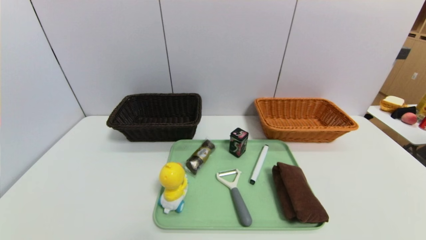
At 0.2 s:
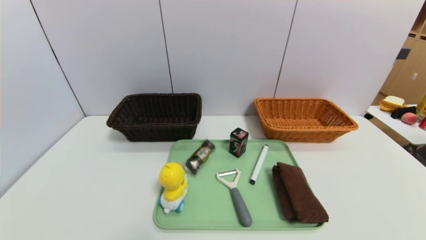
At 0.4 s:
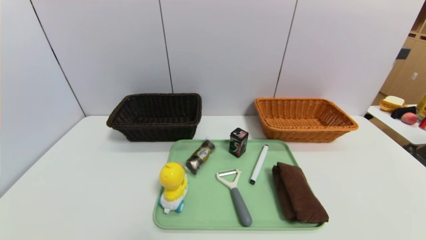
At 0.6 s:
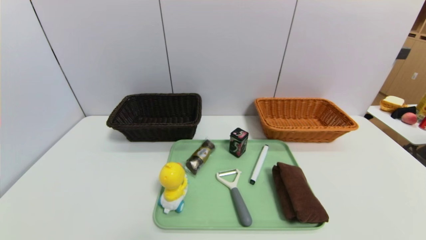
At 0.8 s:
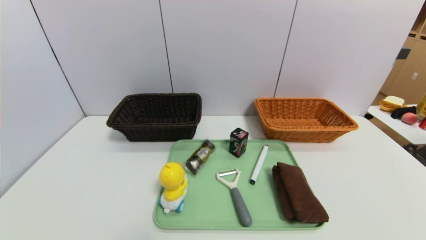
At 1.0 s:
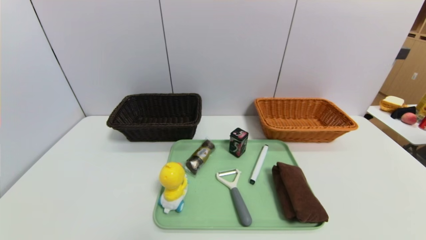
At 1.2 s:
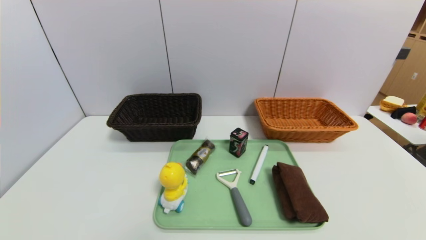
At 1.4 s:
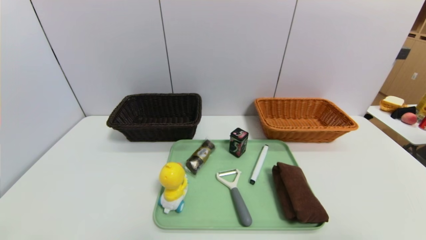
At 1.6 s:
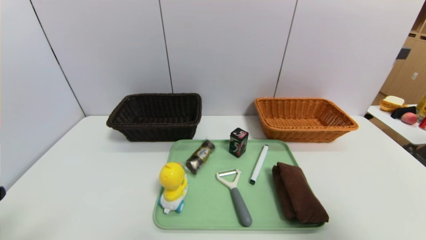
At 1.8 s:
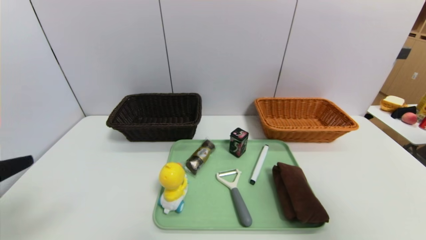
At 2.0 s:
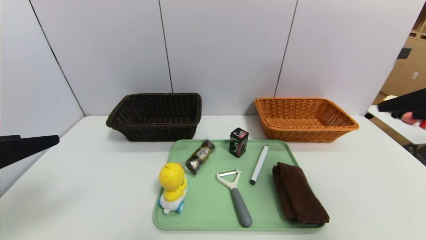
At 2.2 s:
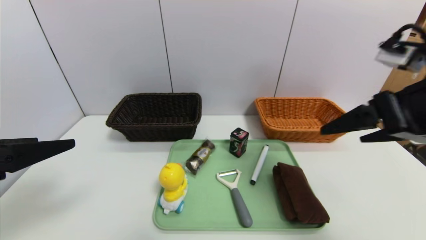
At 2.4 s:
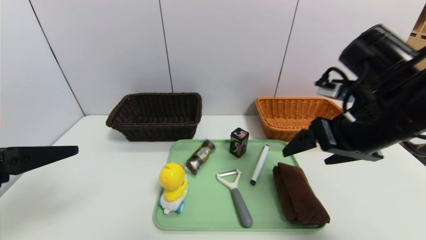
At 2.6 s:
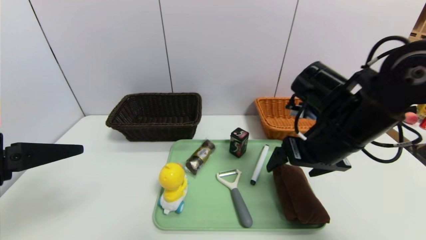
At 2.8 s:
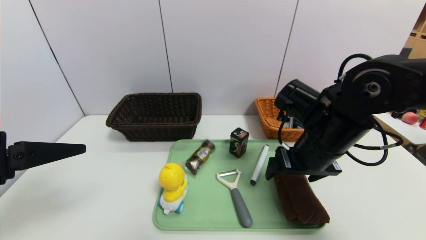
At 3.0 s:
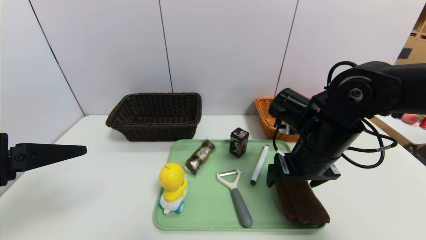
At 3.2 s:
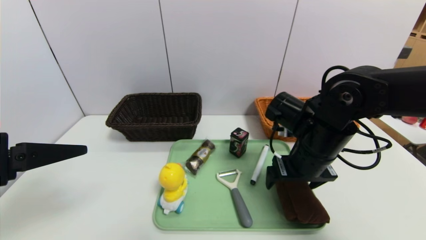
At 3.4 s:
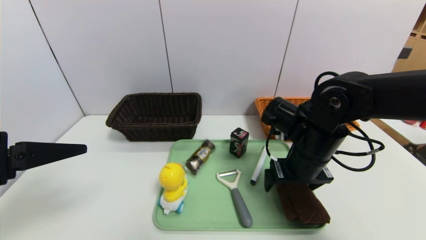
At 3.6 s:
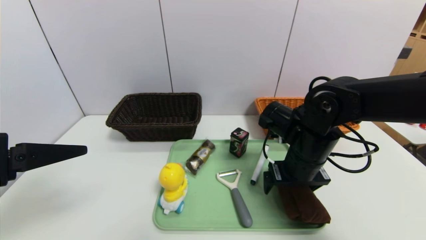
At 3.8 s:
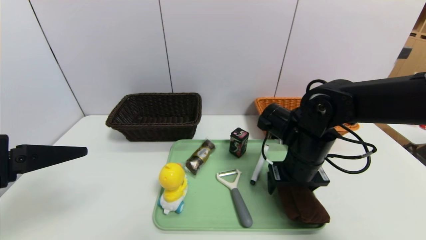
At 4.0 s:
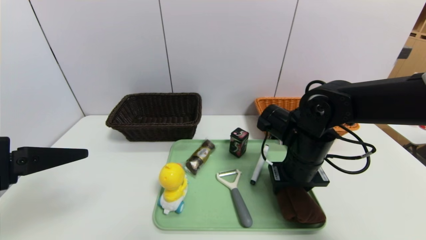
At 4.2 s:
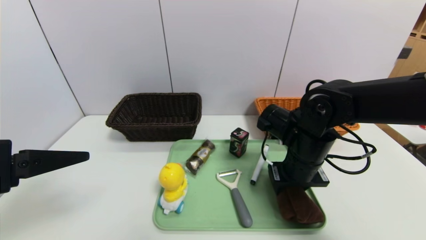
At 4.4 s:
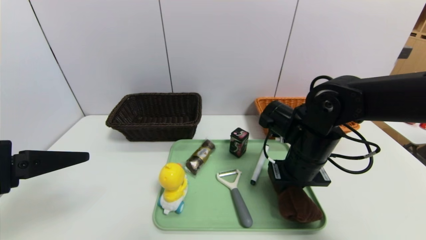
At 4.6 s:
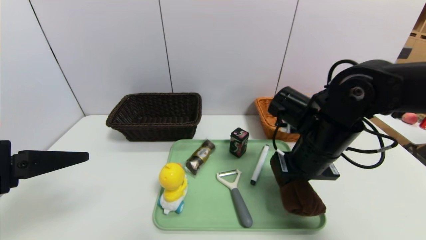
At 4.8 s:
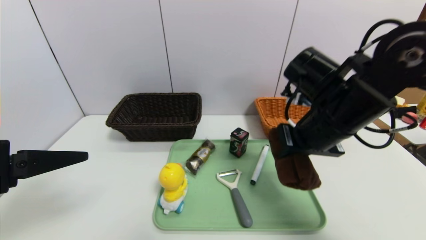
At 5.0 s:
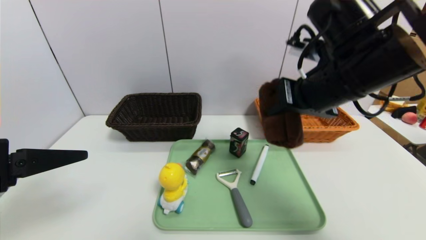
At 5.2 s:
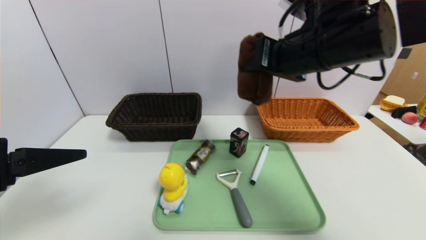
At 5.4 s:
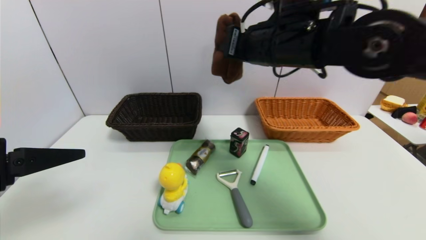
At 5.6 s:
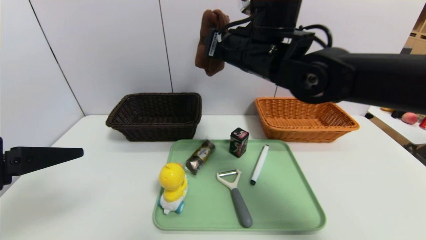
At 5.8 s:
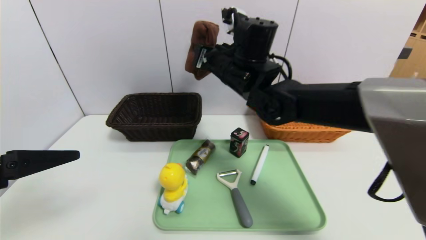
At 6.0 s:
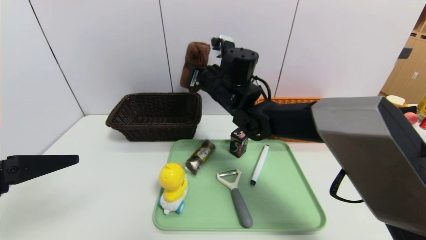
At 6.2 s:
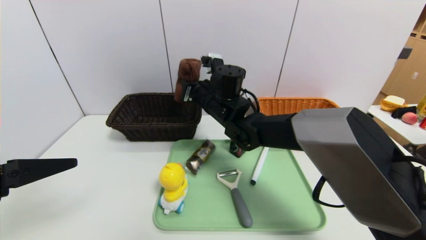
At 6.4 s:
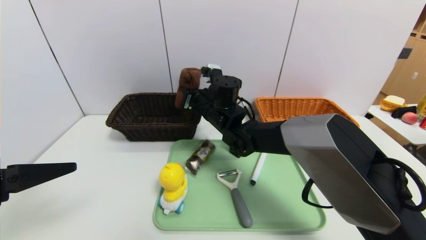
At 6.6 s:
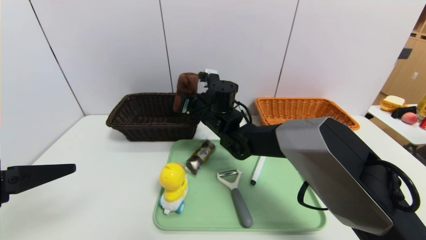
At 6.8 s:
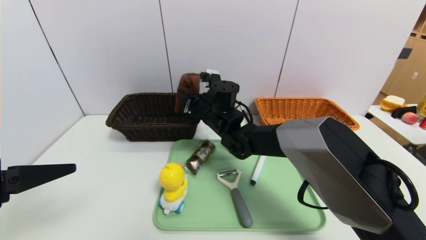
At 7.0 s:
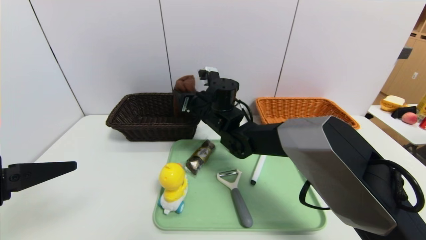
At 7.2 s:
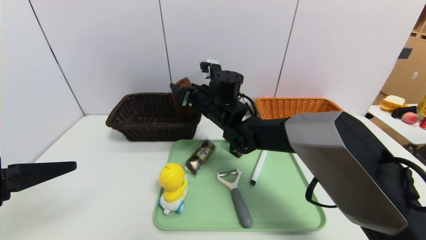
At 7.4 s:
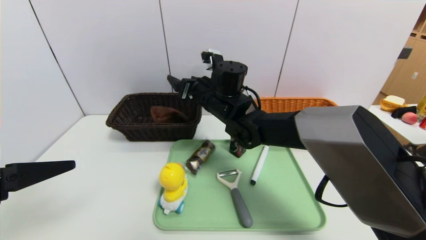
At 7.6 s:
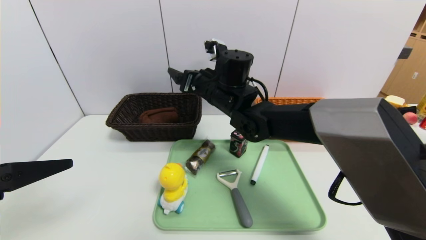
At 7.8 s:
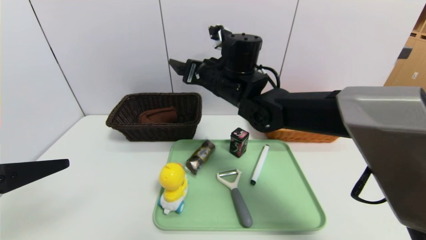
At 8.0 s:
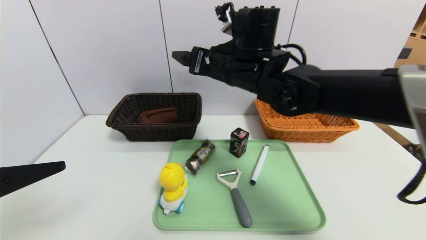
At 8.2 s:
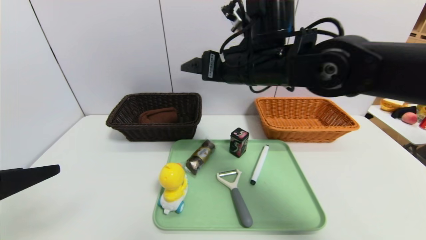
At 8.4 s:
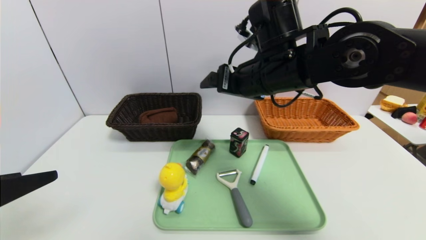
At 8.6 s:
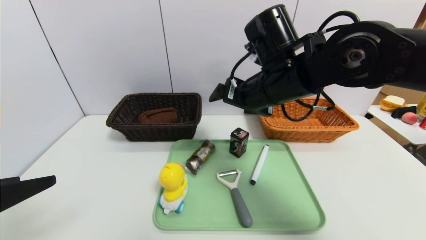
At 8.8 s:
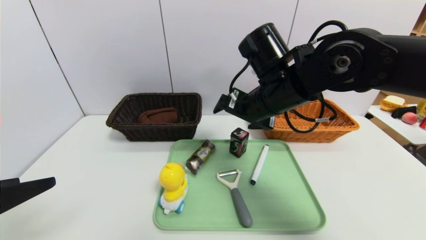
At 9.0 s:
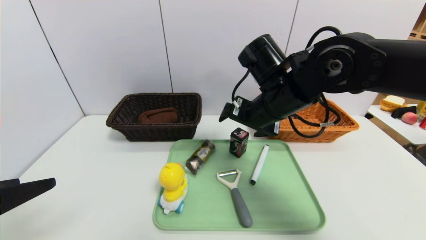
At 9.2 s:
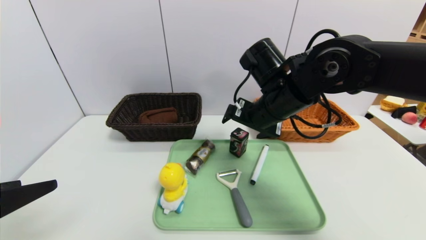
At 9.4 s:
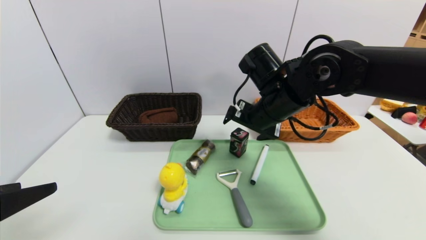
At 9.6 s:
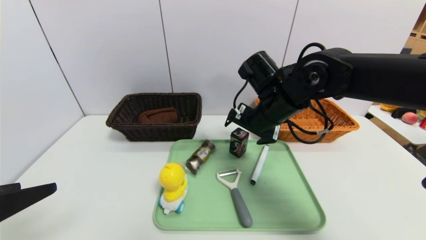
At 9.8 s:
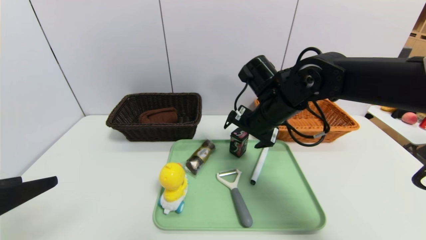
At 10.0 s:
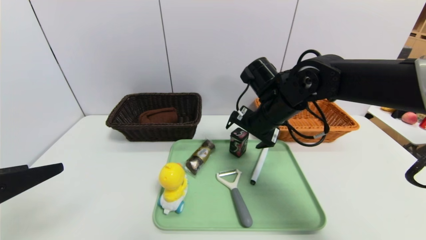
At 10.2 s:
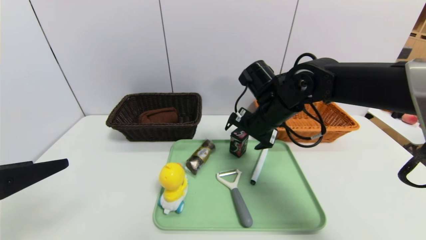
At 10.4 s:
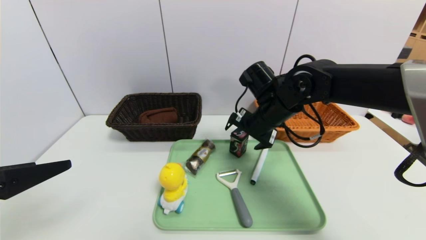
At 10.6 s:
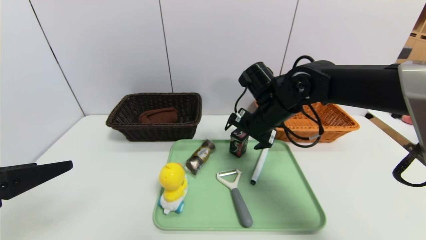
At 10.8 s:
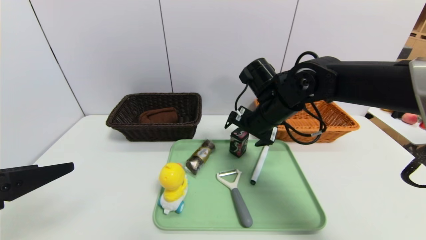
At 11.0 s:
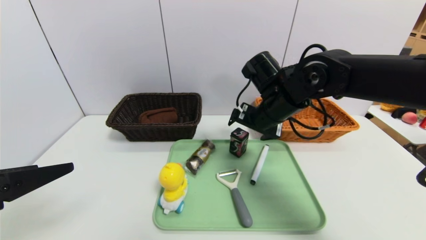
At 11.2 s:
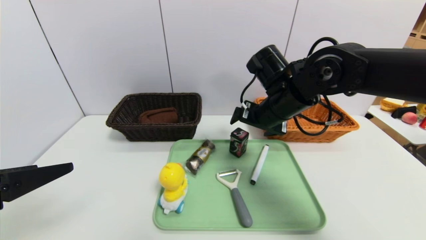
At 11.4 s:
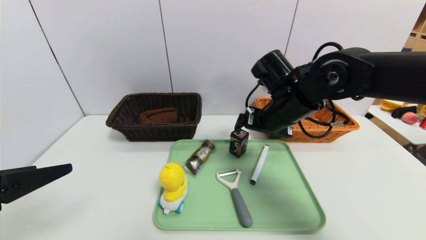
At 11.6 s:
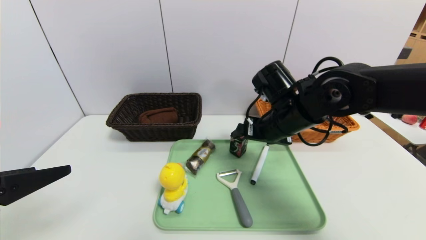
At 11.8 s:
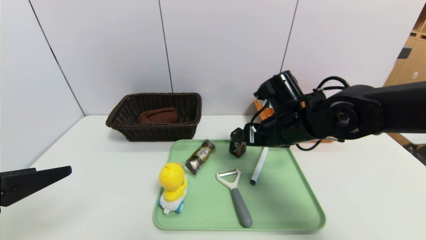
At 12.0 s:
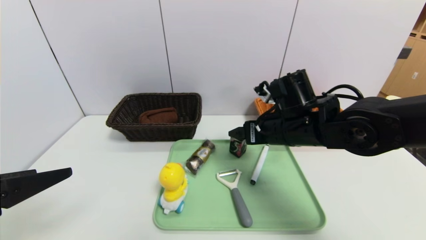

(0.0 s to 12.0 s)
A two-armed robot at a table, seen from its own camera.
Task of the whole recording: place the food in the right basket with the right gripper, and place the non food items in the left basket with the left gripper.
Step, 0.0 s - 8.0 s: Grasp the brown towel and put it in the left basket.
0.0 s - 1.6 s: The right gripper heads upward, covering roughly 30 cm.
1.6 s - 3.0 s: The left gripper travels forward by roughly 10 cm. The right gripper heads forward, to the left and downward, covering roughly 30 cm.
3.0 s - 4.4 s: The right gripper closes up.
4.4 s - 6.0 s: The right gripper goes some 20 cm to the left and forward, and travels upward and back again, some 15 cm each way.
6.0 s - 7.6 s: The right gripper opens its fingers.
7.6 s - 9.0 s: The right gripper is displaced to the right and backward by some 10 cm.
9.0 s - 10.4 s: The right gripper changes place by roughly 5 cm.
10.4 s - 12.0 s: The right gripper shifts roughly 5 cm backward.

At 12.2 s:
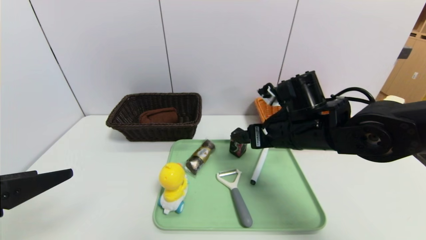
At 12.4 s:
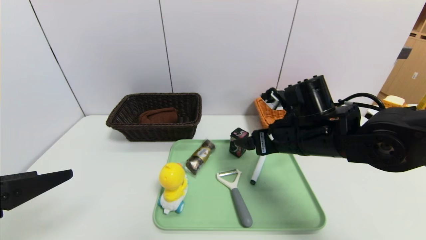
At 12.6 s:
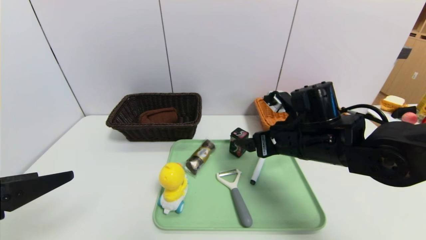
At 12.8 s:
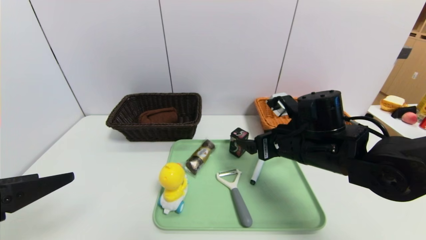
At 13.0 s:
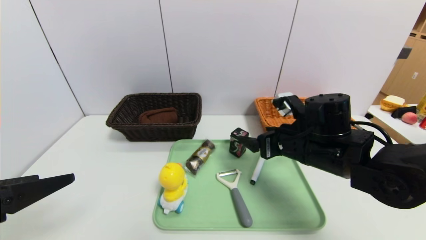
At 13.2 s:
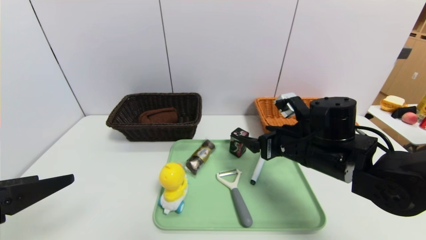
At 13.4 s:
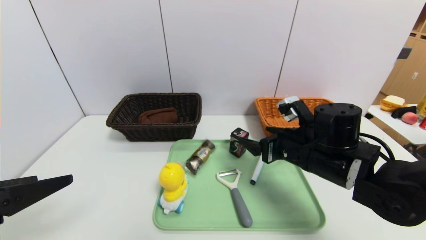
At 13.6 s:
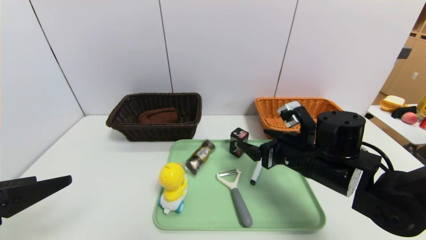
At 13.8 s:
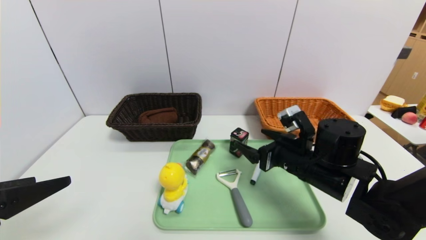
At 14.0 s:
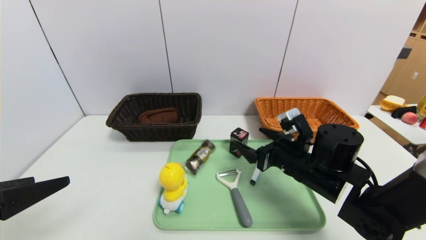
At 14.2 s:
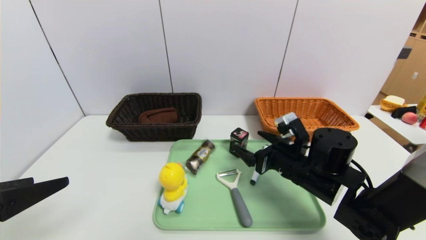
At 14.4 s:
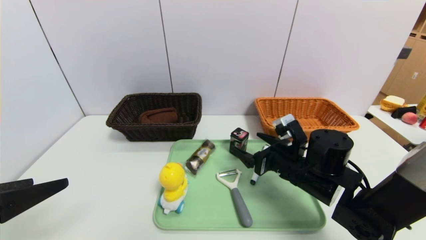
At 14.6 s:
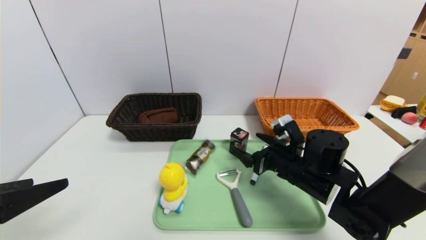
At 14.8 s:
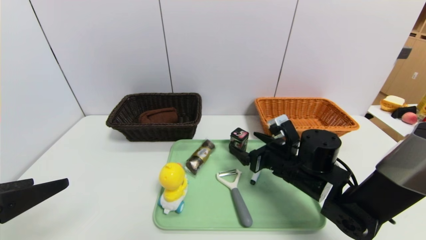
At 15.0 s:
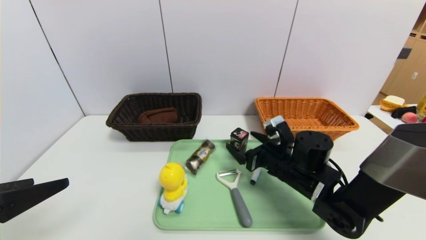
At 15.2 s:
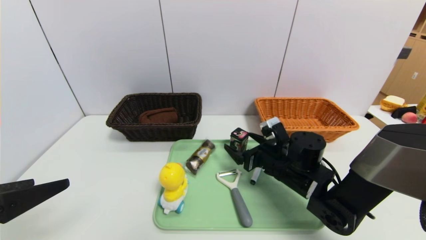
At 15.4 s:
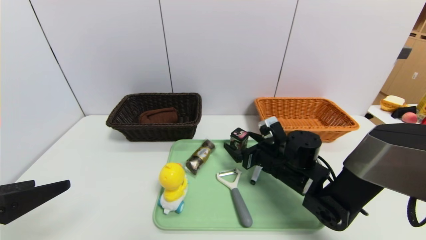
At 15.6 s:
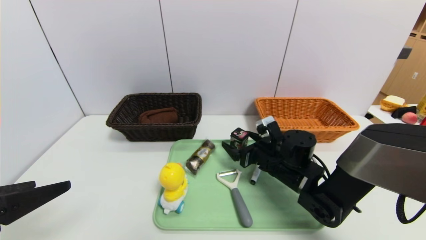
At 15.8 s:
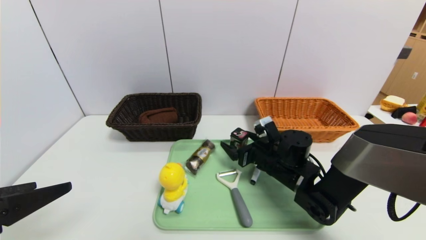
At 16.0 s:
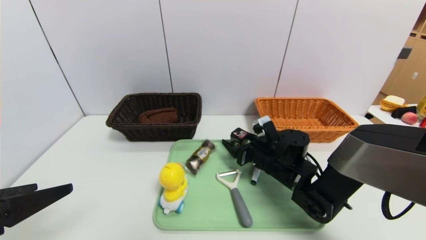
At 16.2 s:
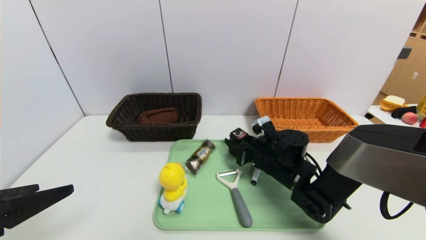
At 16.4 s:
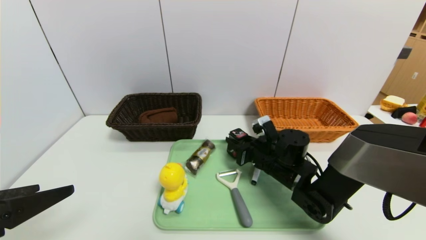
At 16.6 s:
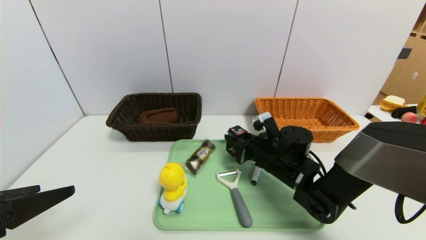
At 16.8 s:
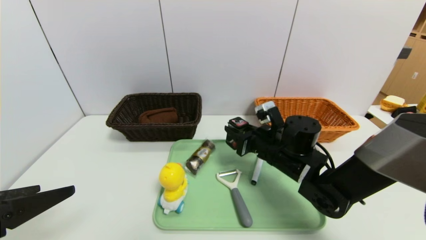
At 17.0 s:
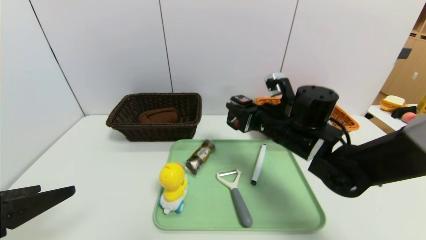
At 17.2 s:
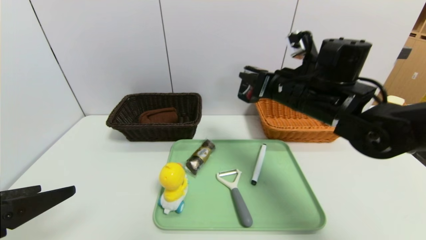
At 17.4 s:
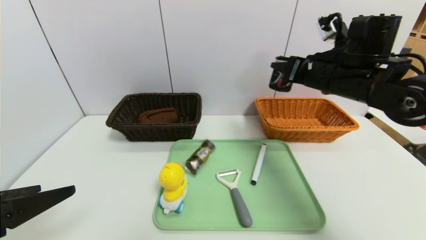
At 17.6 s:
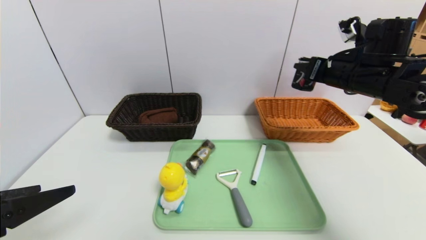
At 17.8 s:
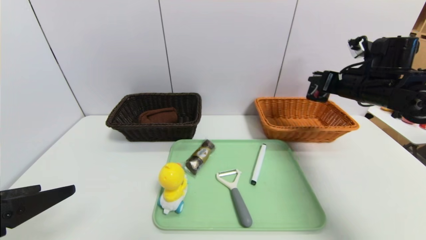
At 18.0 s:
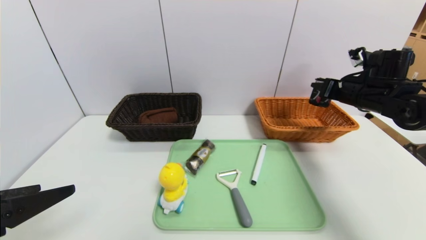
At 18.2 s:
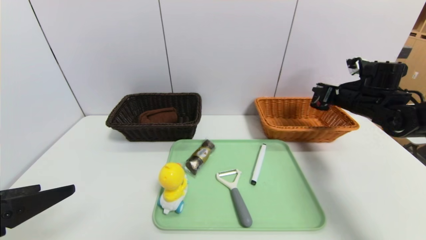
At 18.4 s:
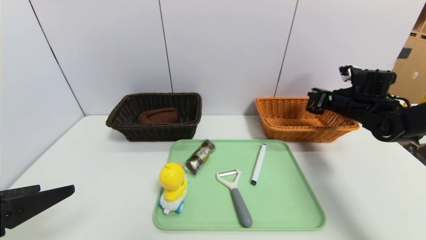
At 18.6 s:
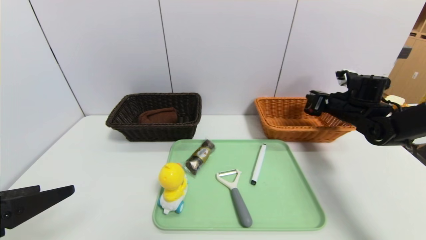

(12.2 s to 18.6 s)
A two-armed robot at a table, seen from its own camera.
Task of the whole recording: place the food in the right basket with the right gripper, and place the non food items in the left basket with the left gripper.
12.2 s - 13.8 s: The right gripper is displaced downward by roughly 5 cm.
13.8 s - 15.4 s: The right gripper moves downward, some 5 cm.
15.4 s - 17.0 s: The right gripper moves upward, roughly 10 cm, and closes its fingers.
17.0 s - 18.6 s: The right gripper shifts about 25 cm to the right and forward.
